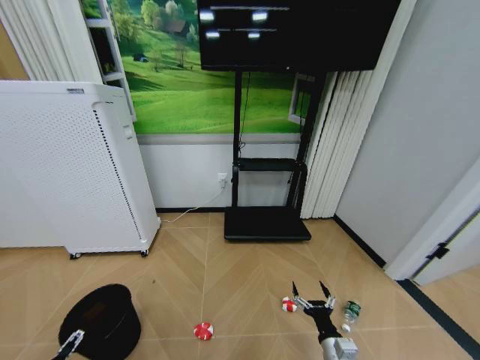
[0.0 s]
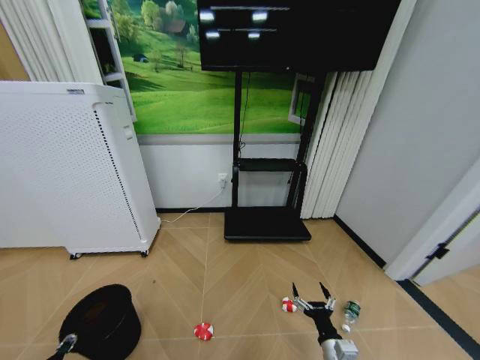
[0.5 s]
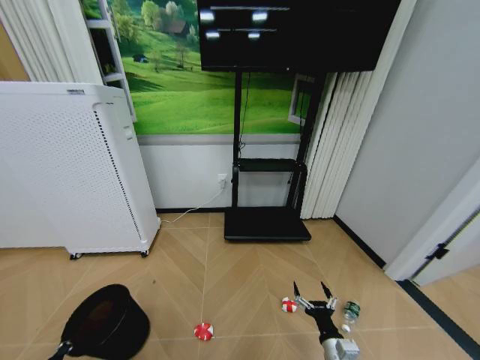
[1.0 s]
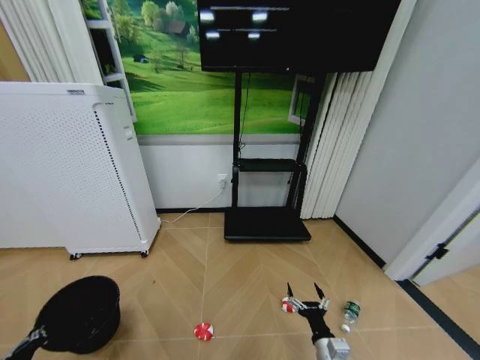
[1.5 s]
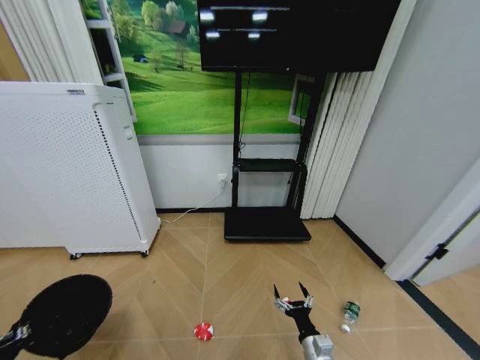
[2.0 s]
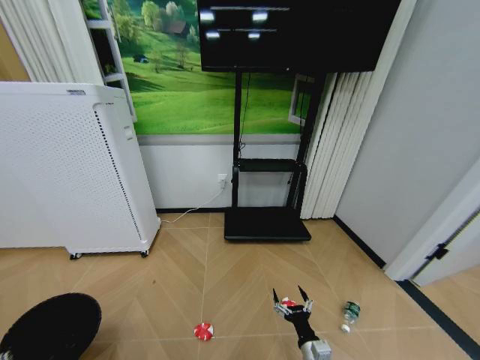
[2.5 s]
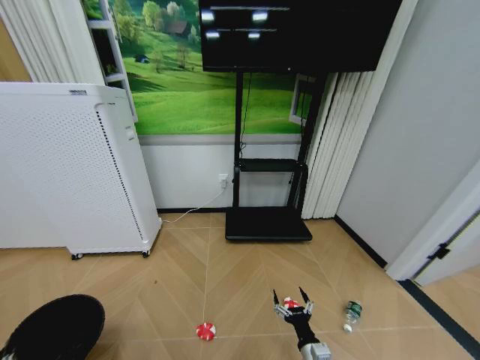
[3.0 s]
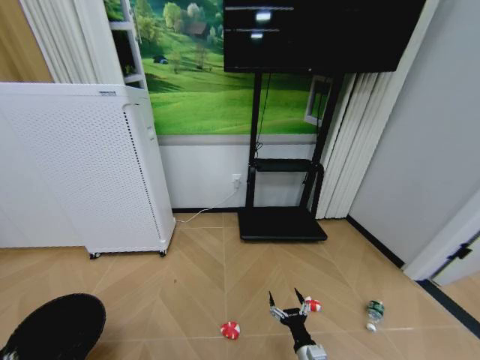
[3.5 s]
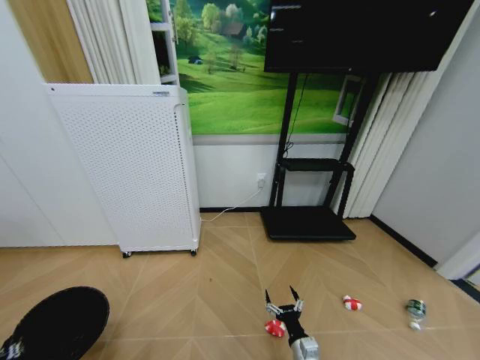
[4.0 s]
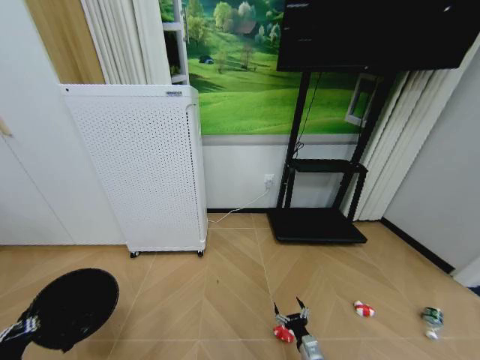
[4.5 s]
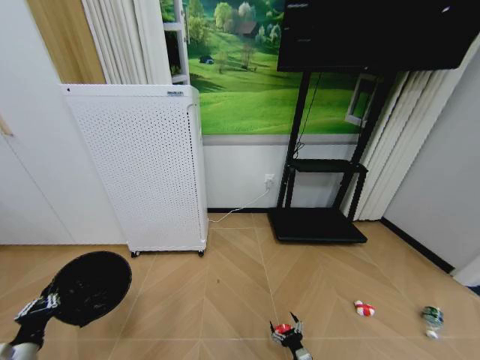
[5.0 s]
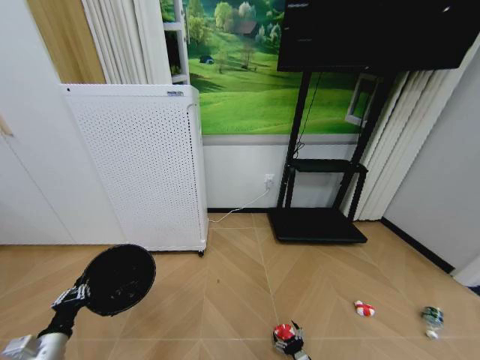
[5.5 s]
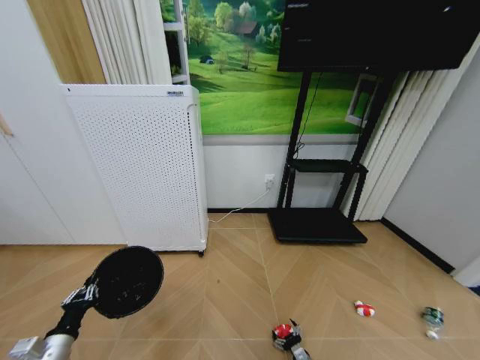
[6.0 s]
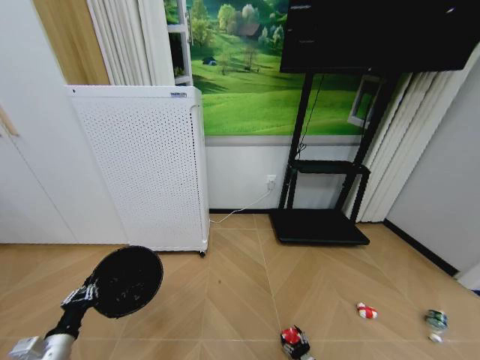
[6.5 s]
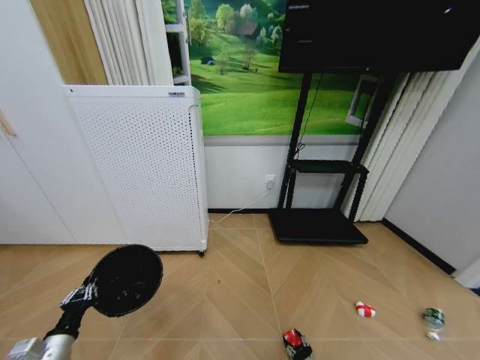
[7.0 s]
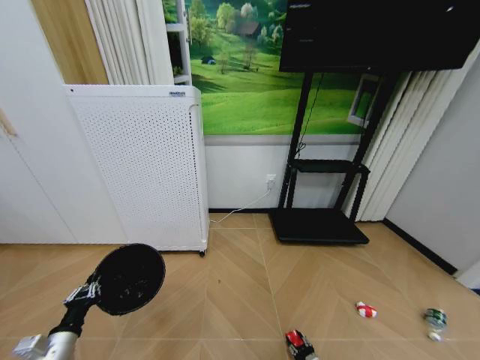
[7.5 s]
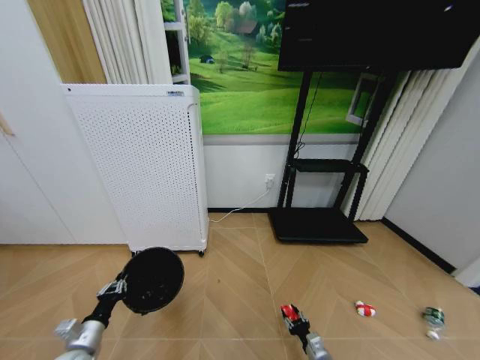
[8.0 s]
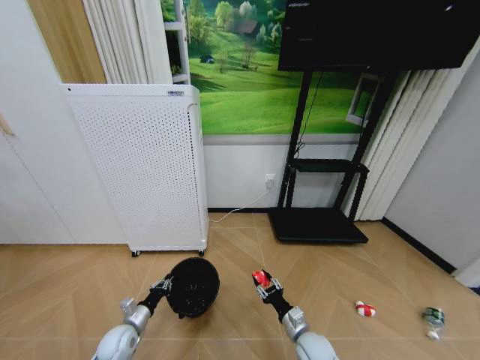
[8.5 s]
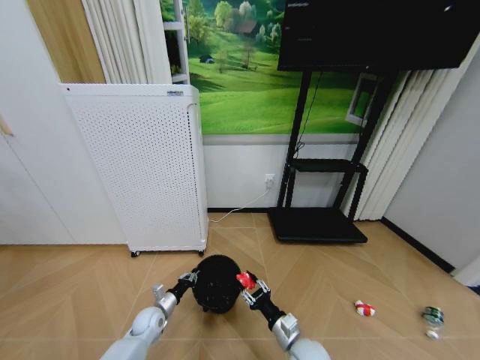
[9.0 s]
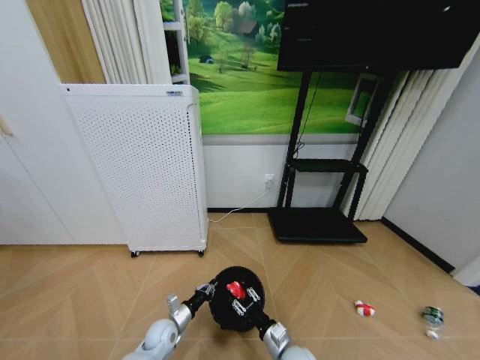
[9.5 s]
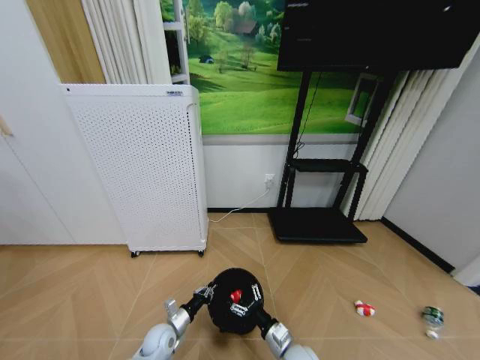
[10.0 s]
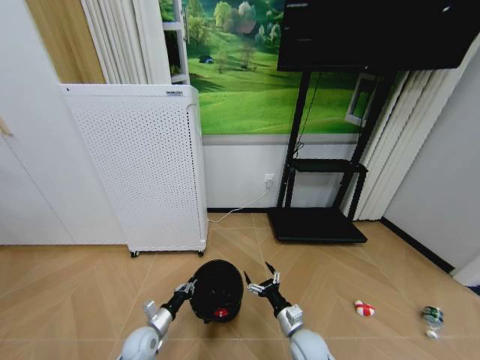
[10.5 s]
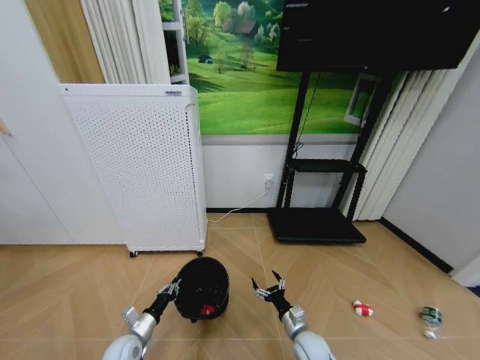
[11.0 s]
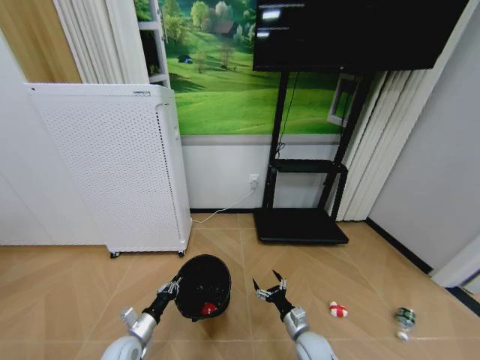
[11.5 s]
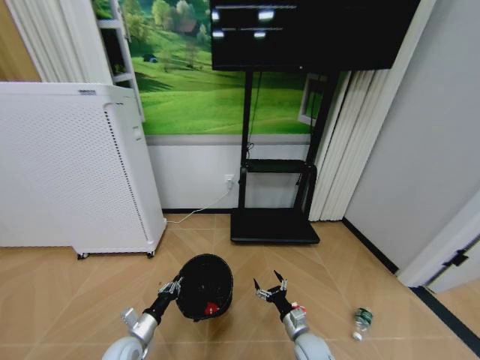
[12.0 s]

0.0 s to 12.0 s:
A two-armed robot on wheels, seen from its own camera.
Task of the whole recording: Pick up the trash bin and place the garbage on the floor into it.
0.0 to 2.0 s: The left gripper ends up roughly 5 cm from where it was, and closes.
4.0 to 6.0 s: The left gripper heads forward and to the right, covering approximately 10 cm. Meanwhile the right gripper goes about 20 cm downward and to the right.
6.0 to 8.0 s: The right gripper travels upward by roughly 10 cm, and closes. The left gripper changes place by approximately 5 cm.
8.0 to 10.0 s: The right gripper heads to the left and upward, covering approximately 20 cm. The left gripper is displaced to the right, downward and forward by roughly 25 cm.
10.0 to 12.0 s: The left gripper is displaced to the left, upward and backward by roughly 10 cm. The right gripper travels to the right by some 5 cm.

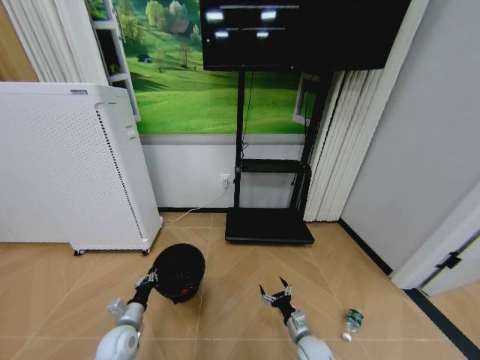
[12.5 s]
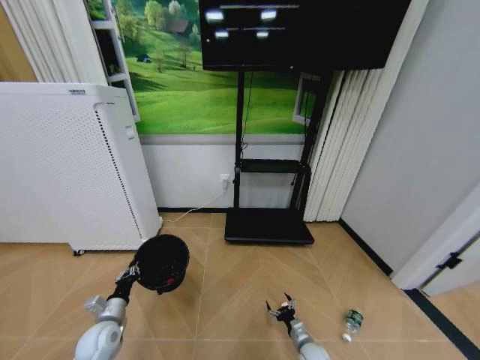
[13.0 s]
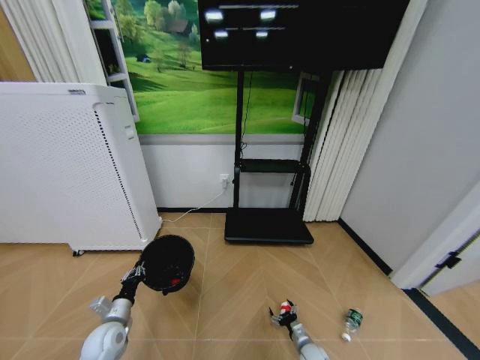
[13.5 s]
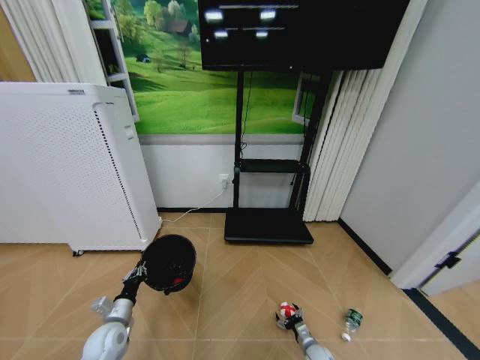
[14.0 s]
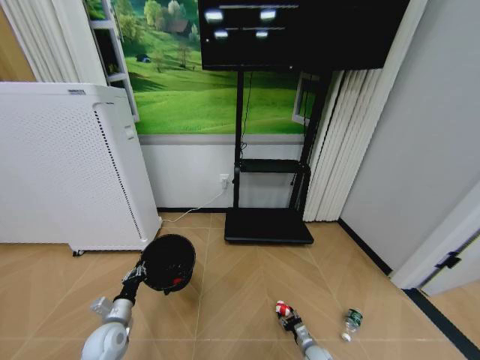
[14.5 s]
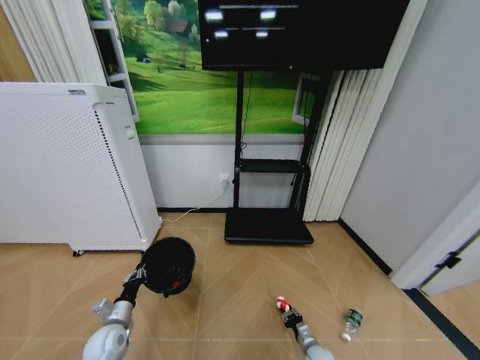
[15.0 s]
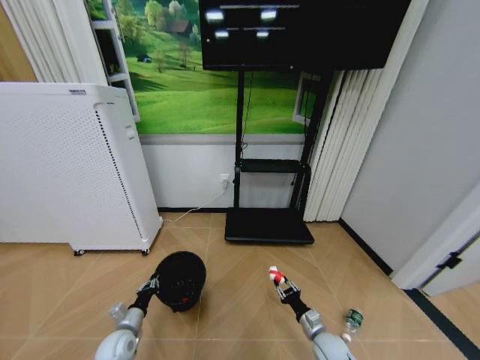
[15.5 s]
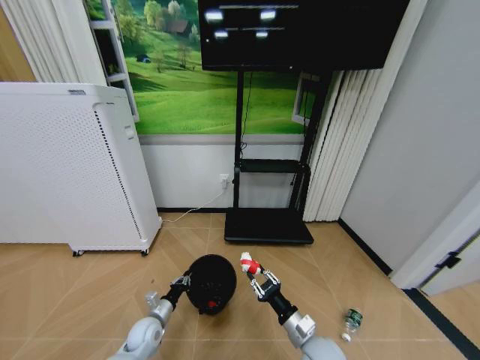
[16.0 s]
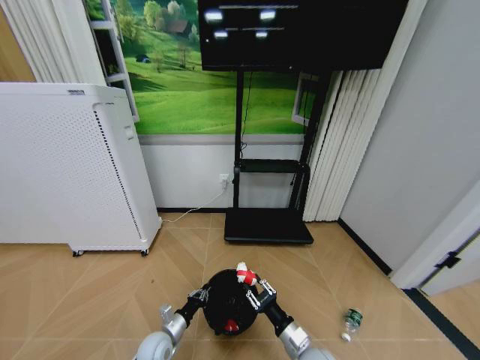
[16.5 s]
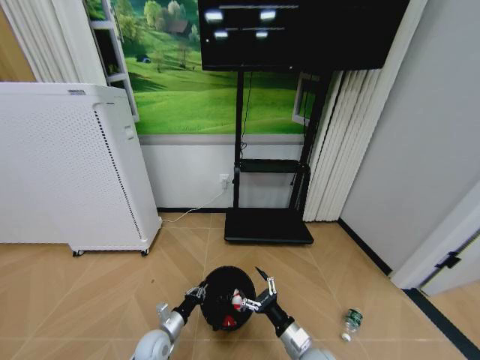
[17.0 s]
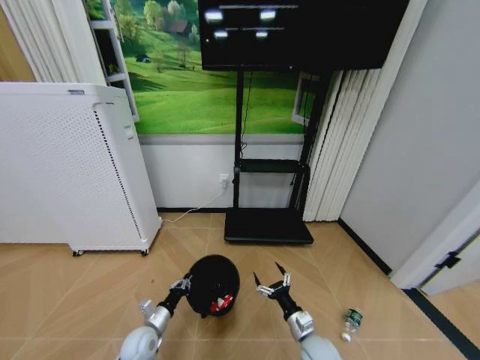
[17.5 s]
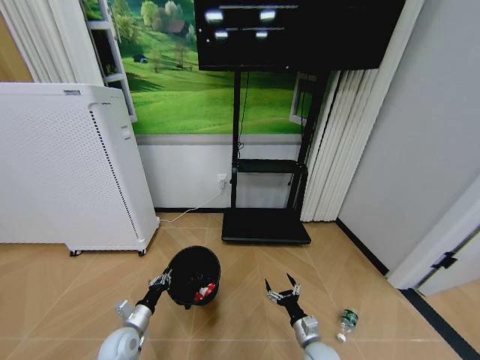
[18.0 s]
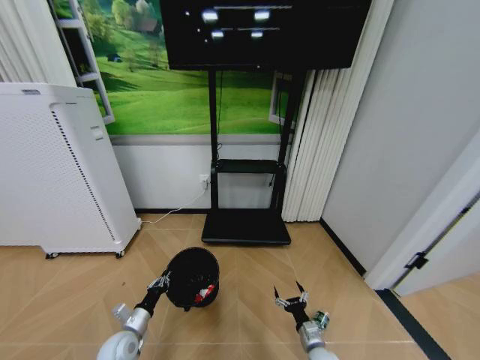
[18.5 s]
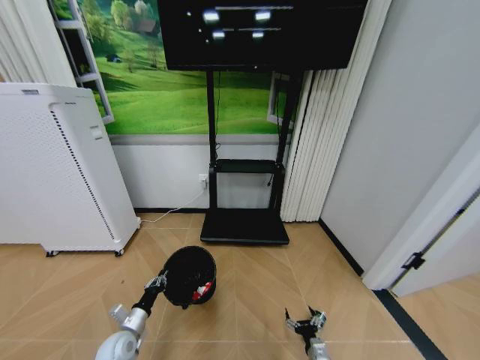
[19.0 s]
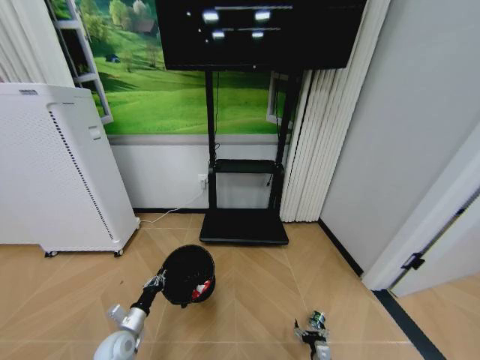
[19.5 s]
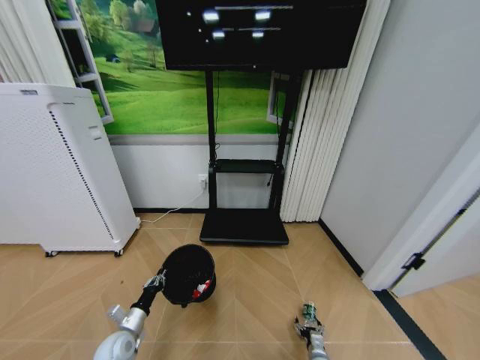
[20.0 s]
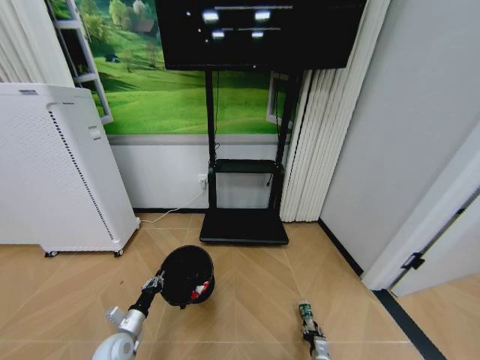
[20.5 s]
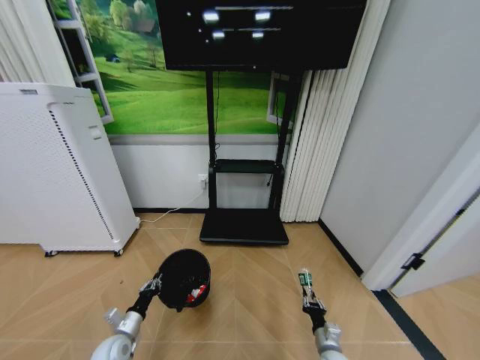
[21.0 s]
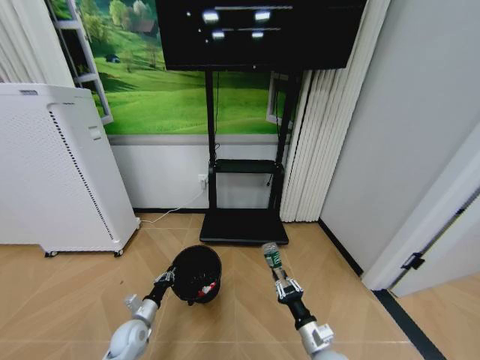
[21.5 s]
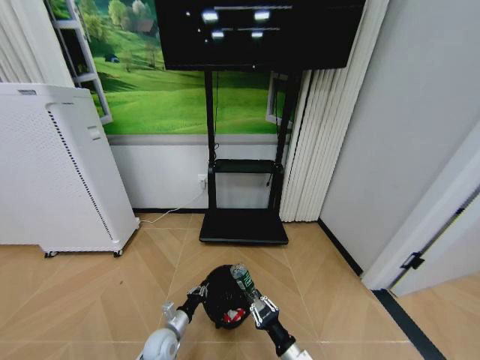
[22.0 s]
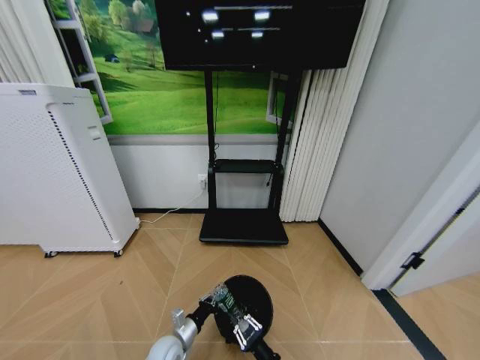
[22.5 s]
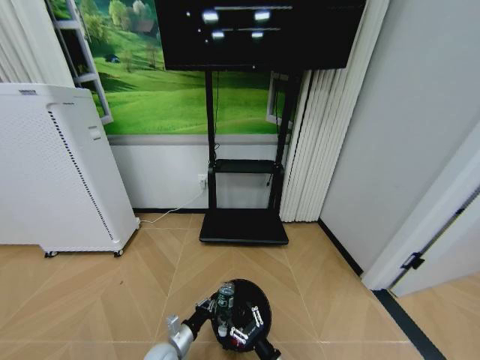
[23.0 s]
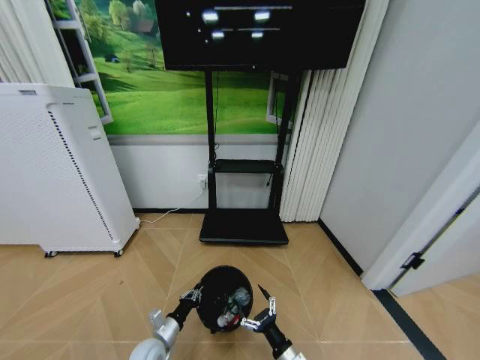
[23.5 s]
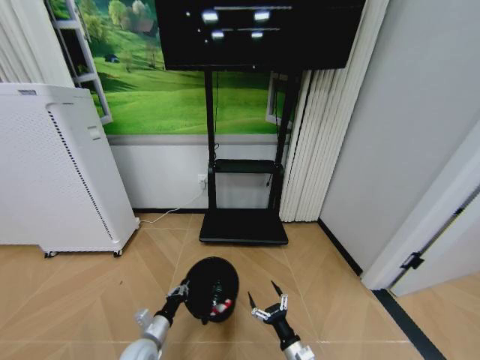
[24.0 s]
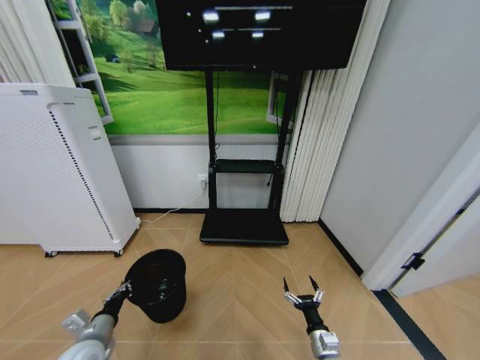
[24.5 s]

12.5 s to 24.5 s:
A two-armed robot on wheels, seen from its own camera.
Task of the whole recording: Pick up the trash bin and place the garbage on the floor into it.
12.5 to 14.5 s: The right gripper goes about 15 cm downward and to the right, and closes.
14.5 to 16.5 s: The left gripper shifts approximately 15 cm to the right and downward, while the right gripper heads upward and to the left, covering roughly 30 cm, and closes up.
16.5 to 18.5 s: The right gripper moves downward and to the right, roughly 15 cm, and opens up. The left gripper moves to the left, about 10 cm.
18.5 to 20.5 s: The right gripper heads downward, covering about 10 cm, and closes.
20.5 to 22.5 s: The right gripper heads upward, to the left and backward, covering about 25 cm. Meanwhile the left gripper moves to the right, about 15 cm.
22.5 to 24.5 s: The left gripper goes approximately 20 cm to the left and upward; the right gripper heads to the right and forward, covering some 10 cm, and opens its fingers.

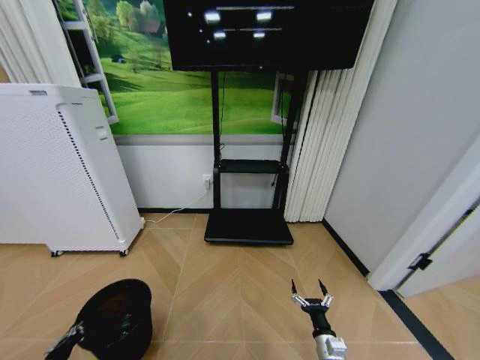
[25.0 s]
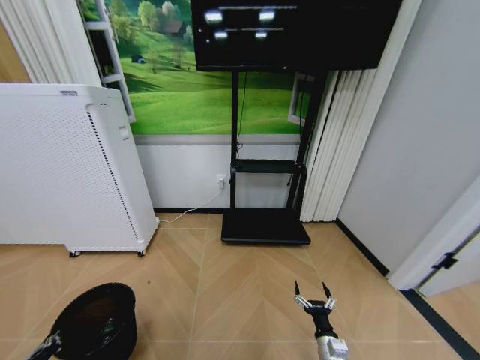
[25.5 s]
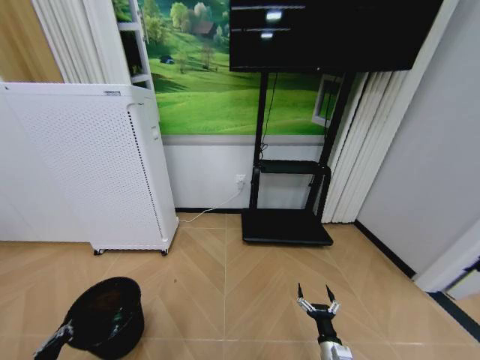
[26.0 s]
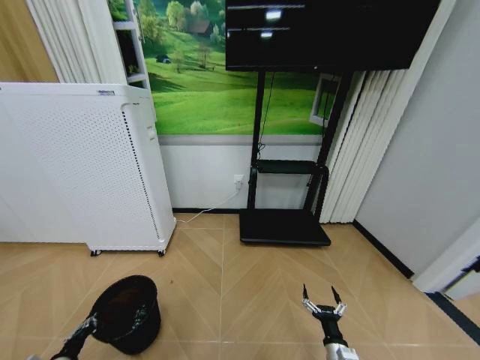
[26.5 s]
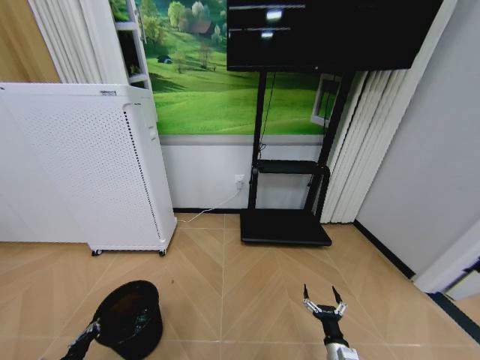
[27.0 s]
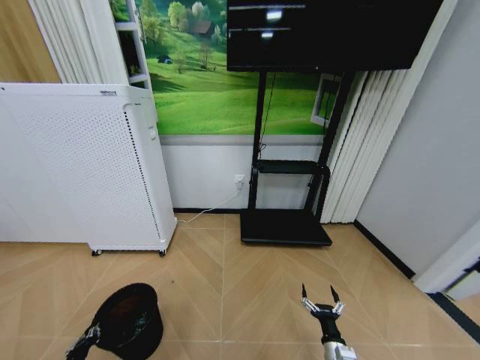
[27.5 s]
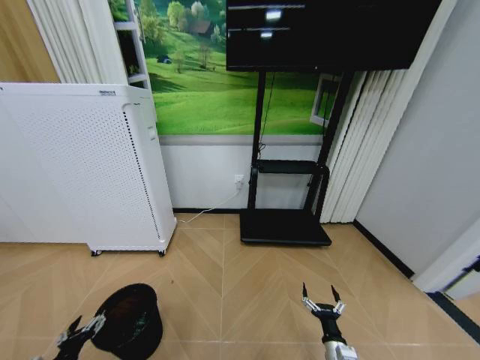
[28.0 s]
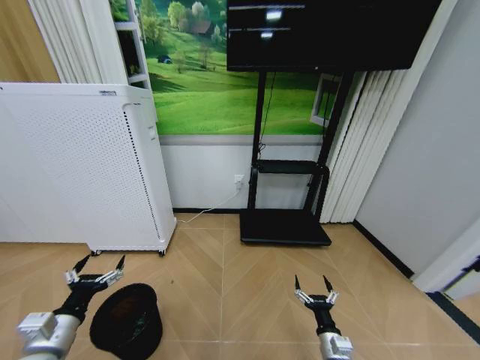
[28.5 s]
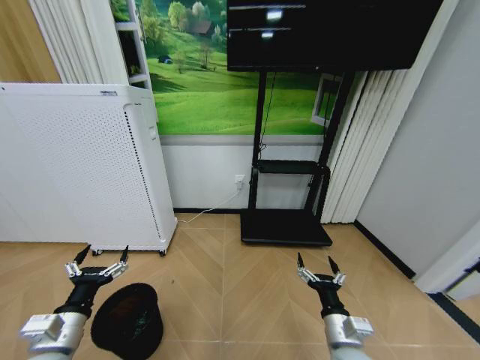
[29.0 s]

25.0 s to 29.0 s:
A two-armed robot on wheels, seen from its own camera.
Task of the whole recording: Pick up the trash bin and place the garbage on the floor into it.
25.0 to 27.0 s: The left gripper goes approximately 10 cm downward.
27.0 to 29.0 s: The left gripper travels upward and to the right by some 20 cm, and opens up, while the right gripper shifts roughly 15 cm upward.
